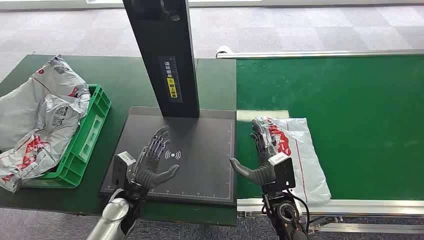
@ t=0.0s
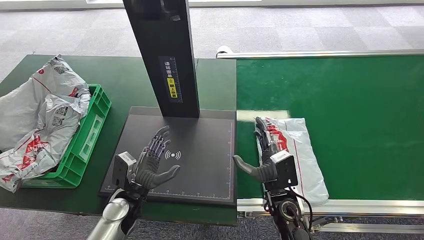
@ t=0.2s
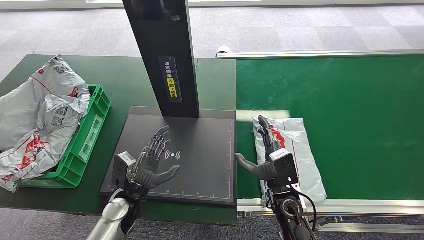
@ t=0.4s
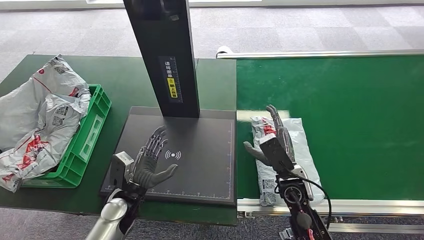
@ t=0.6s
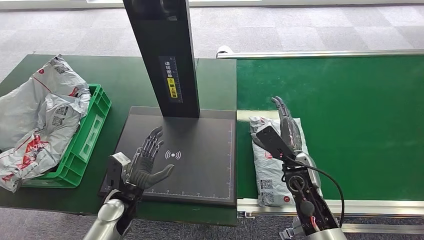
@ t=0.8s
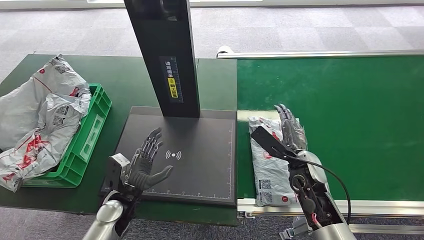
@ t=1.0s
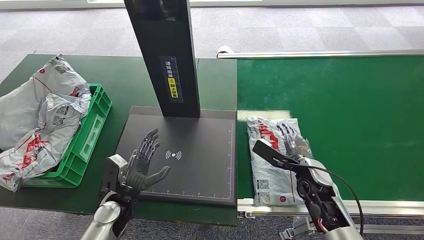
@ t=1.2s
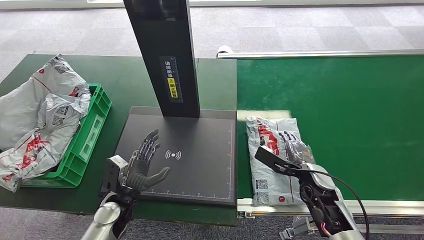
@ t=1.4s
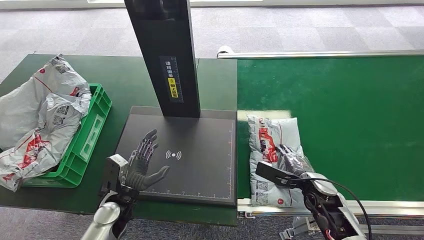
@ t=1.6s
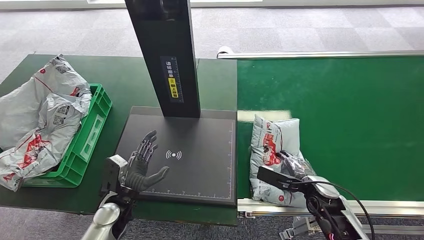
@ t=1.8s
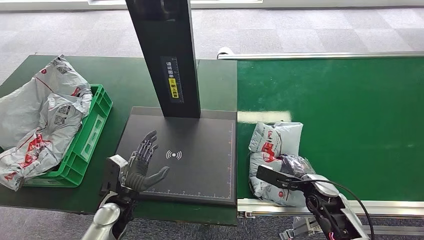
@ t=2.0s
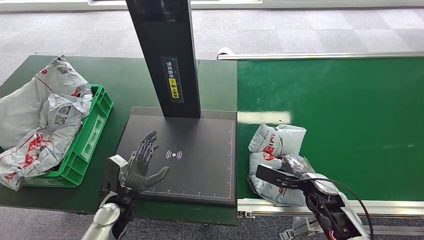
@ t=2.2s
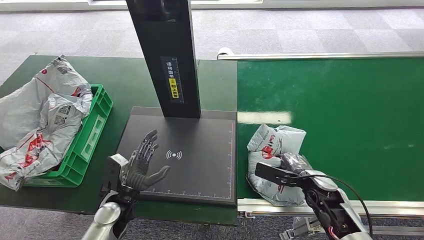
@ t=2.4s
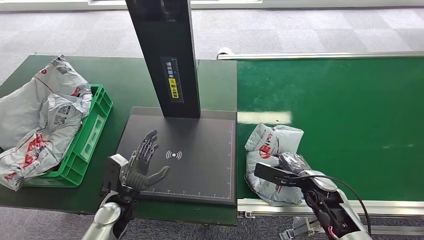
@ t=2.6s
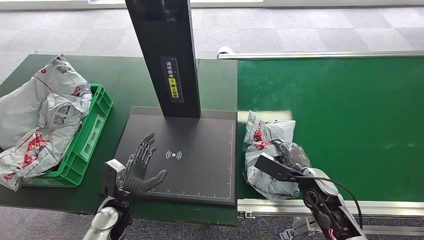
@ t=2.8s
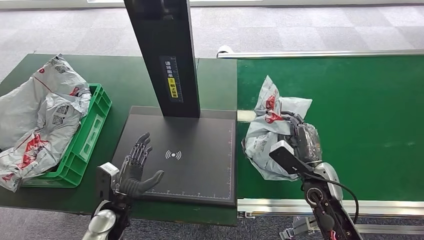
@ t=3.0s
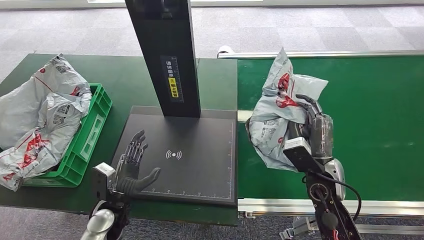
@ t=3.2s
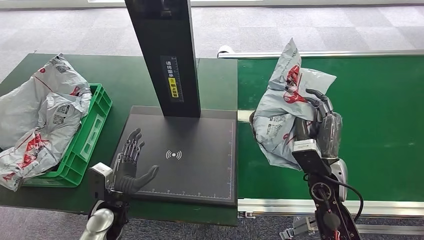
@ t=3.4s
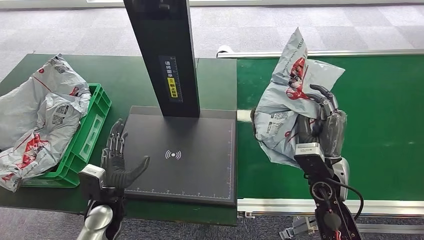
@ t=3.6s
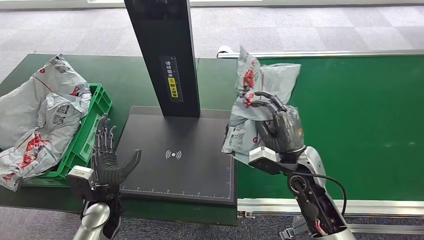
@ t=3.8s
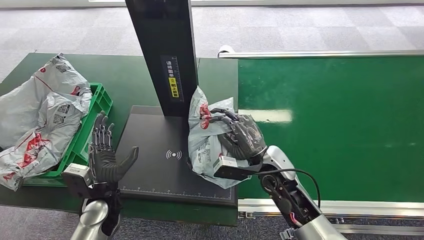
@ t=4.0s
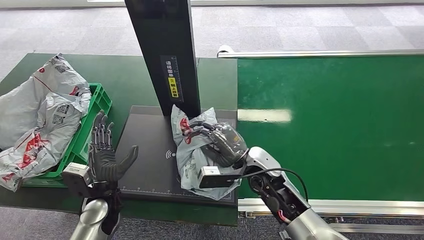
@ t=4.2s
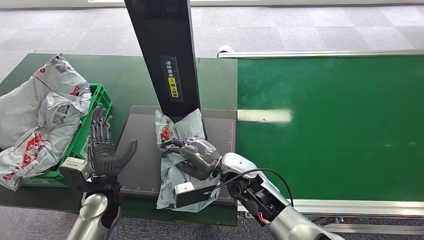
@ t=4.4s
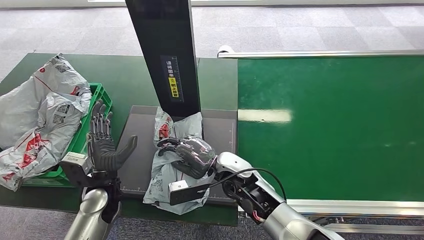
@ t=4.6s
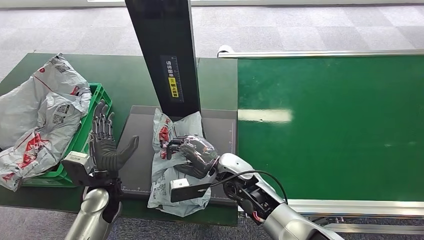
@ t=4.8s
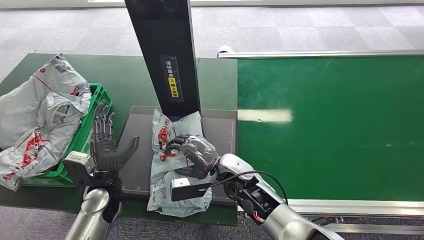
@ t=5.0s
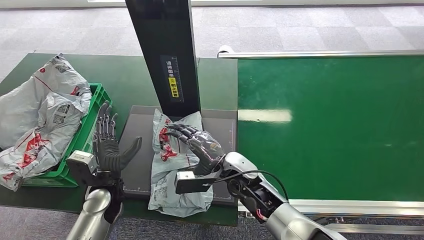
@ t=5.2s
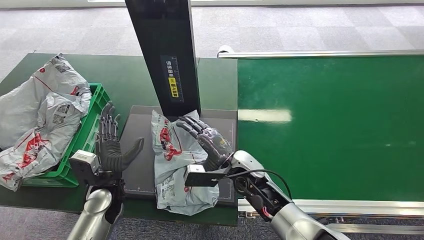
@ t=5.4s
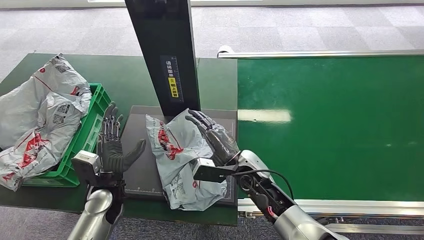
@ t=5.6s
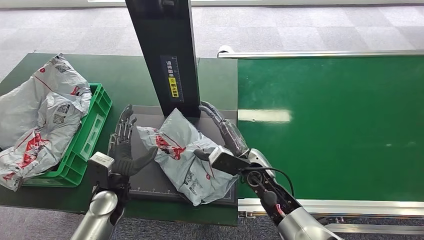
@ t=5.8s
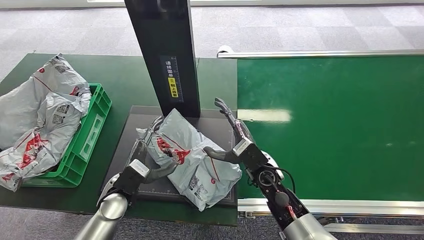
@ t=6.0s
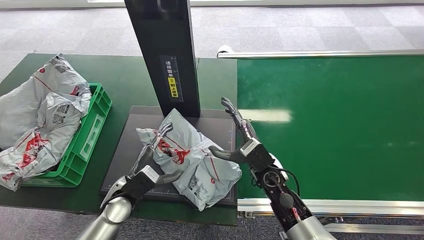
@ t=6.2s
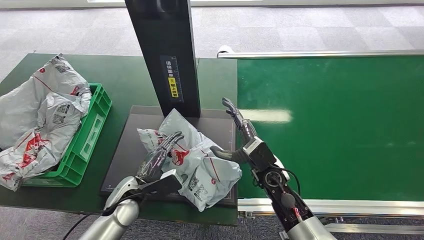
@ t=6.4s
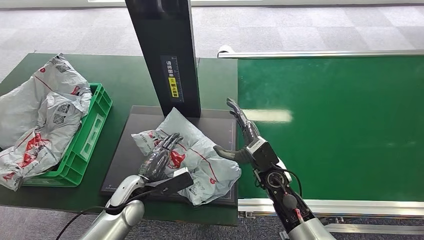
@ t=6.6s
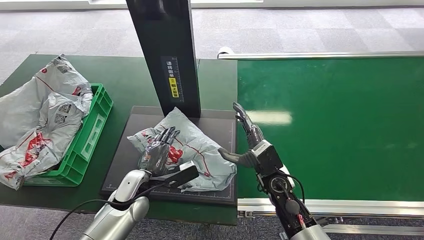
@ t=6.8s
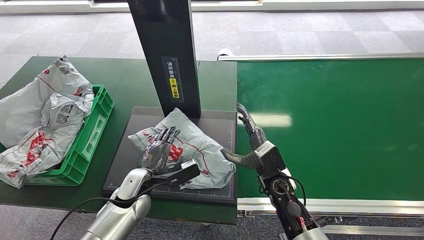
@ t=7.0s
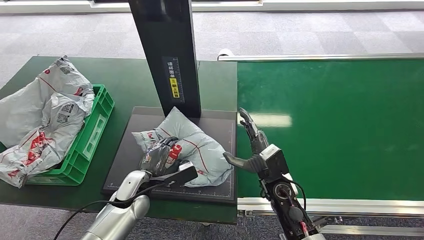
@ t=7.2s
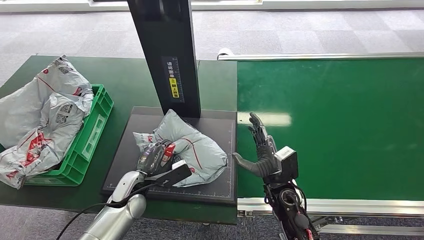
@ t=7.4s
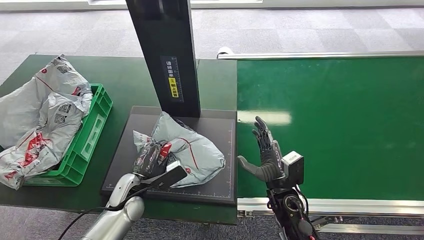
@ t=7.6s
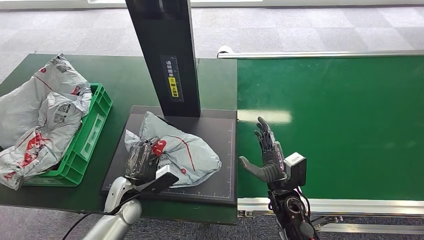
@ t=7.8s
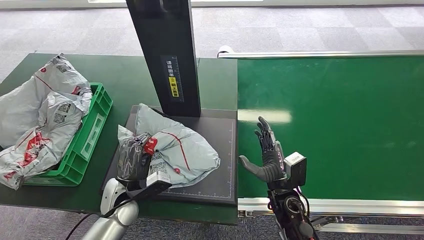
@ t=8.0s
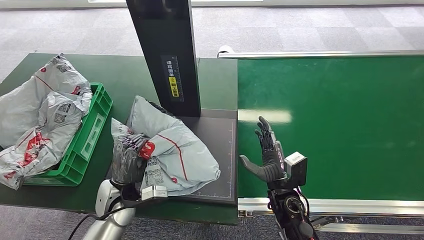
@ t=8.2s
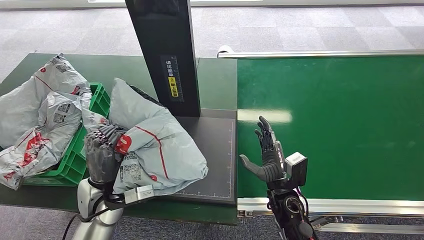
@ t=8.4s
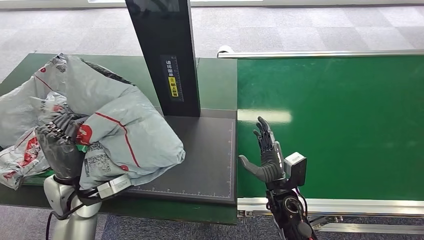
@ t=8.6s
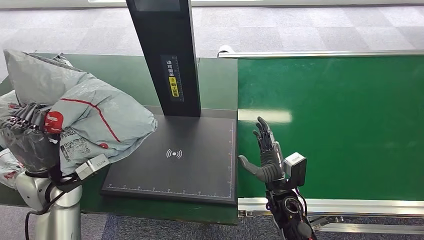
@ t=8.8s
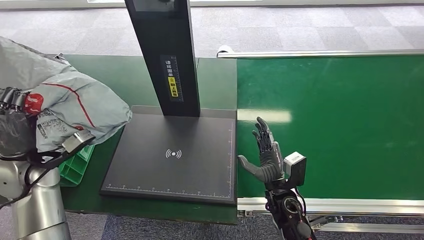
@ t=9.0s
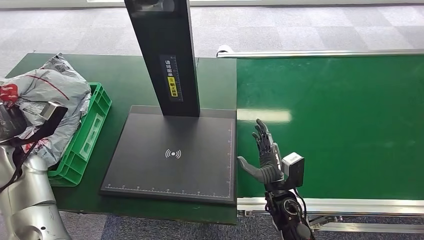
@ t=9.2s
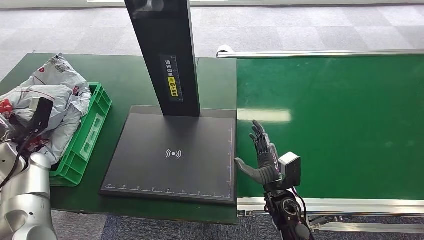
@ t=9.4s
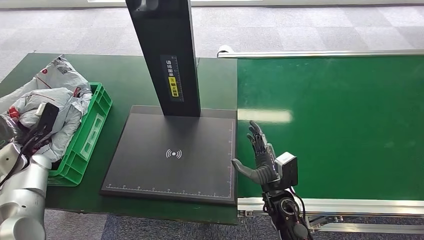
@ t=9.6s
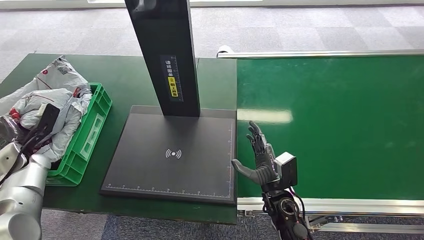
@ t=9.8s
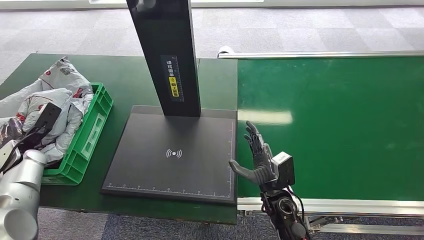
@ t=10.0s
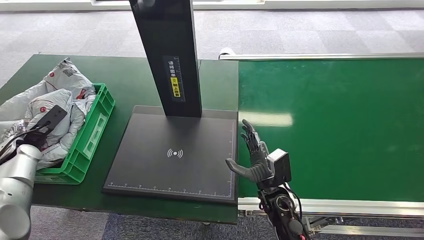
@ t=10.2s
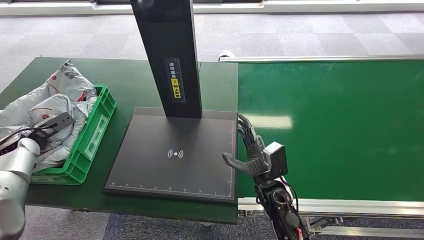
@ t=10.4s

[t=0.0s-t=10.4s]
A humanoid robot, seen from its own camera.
Step, t=0.0s to t=3.8s: Pick up the package from the conveyor belt.
Step, t=4.0s to t=6.2s: Place the package onto the inbound machine.
Step, t=6.6s to t=8.8s: Pick up the package from the inbound machine.
t=3.0s to t=4.4s: The right hand moves to the left, roughly 20 cm. The left hand shifts roughly 5 cm upward.
t=4.4s to t=6.0s: The right hand heads to the right, covering about 5 cm.

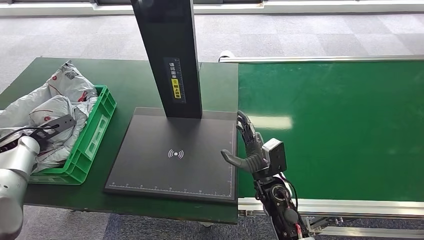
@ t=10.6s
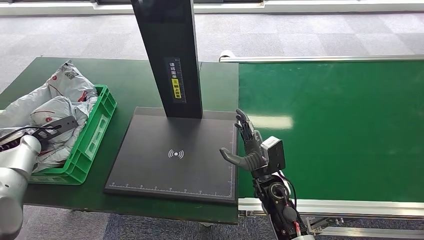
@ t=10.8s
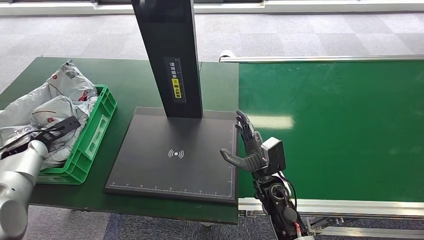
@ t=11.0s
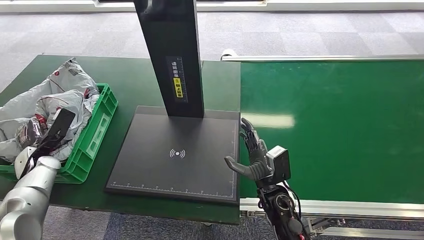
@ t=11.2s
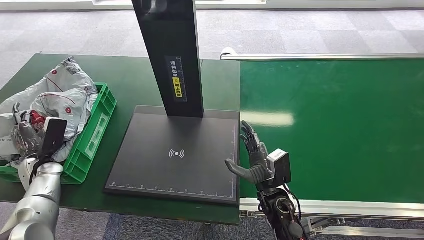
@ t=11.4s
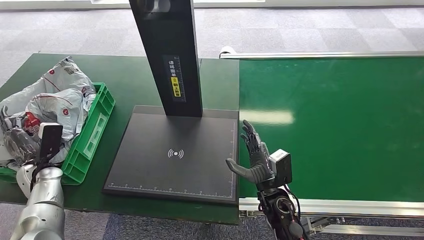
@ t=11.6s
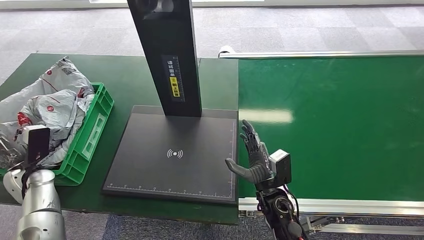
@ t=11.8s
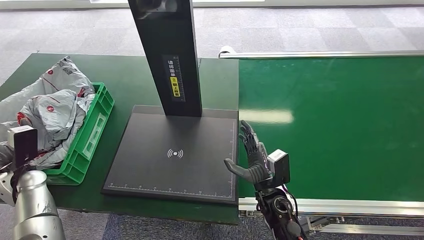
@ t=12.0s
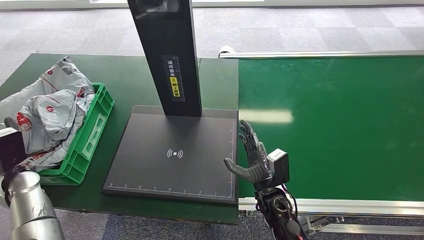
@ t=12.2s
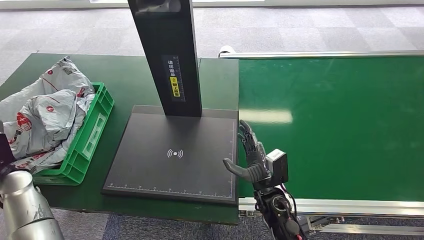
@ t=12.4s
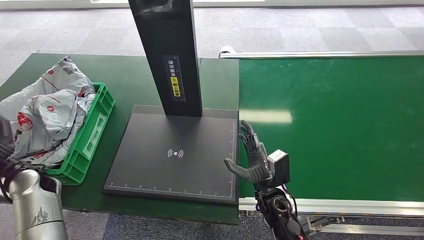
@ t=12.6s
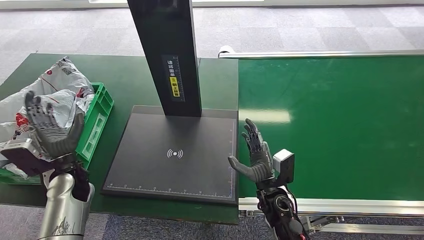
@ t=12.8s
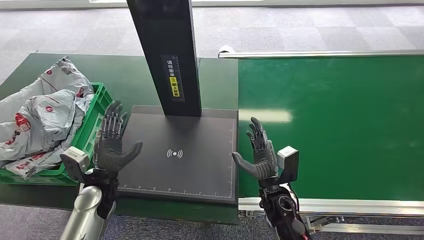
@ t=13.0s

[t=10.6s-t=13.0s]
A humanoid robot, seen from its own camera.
Step, t=10.6s to t=12.8s: Place the package into the parcel locker.
t=11.8s to t=13.0s: The left hand shifts approximately 20 cm to the right.

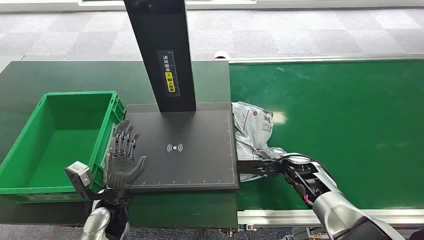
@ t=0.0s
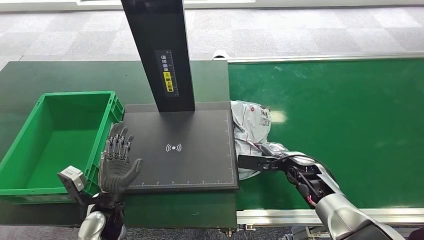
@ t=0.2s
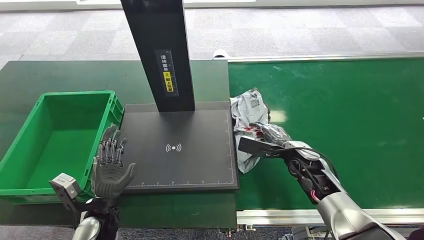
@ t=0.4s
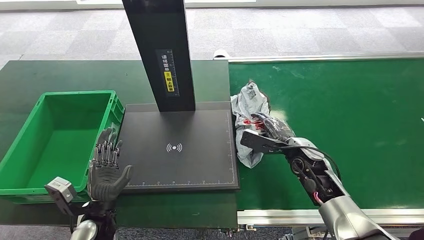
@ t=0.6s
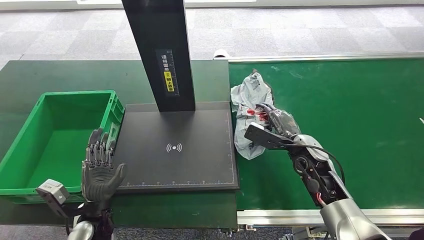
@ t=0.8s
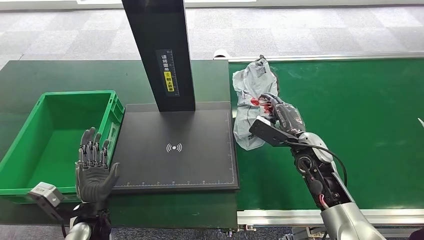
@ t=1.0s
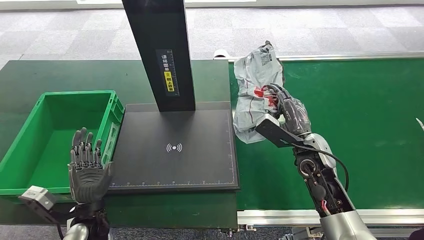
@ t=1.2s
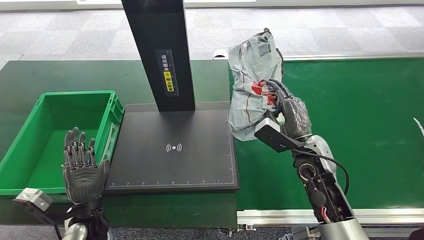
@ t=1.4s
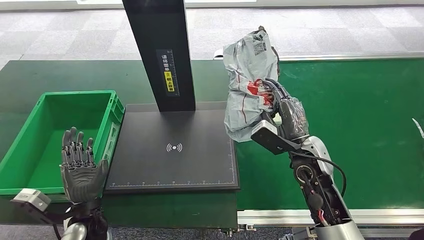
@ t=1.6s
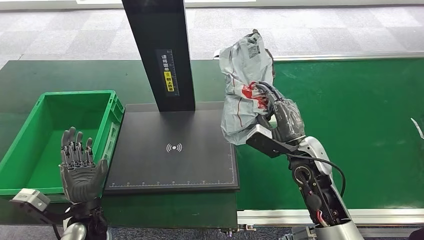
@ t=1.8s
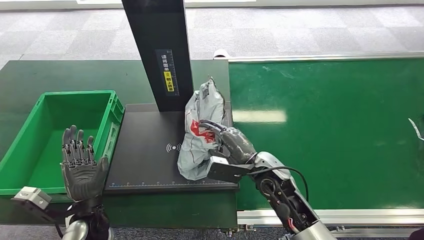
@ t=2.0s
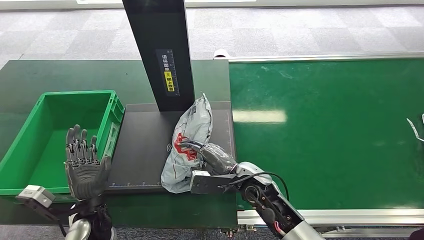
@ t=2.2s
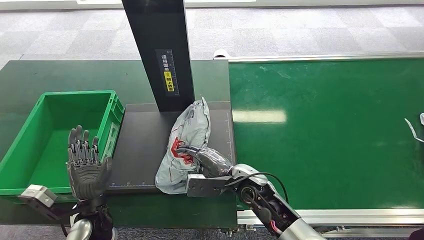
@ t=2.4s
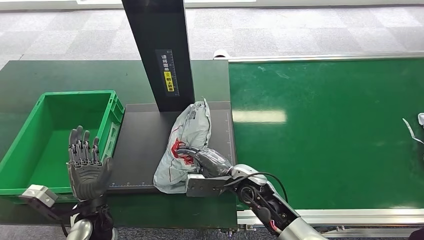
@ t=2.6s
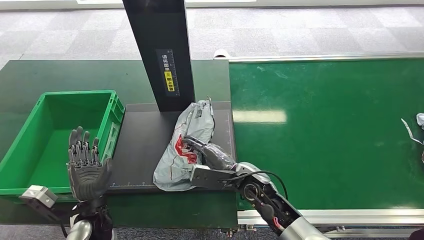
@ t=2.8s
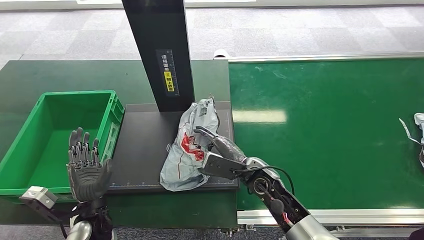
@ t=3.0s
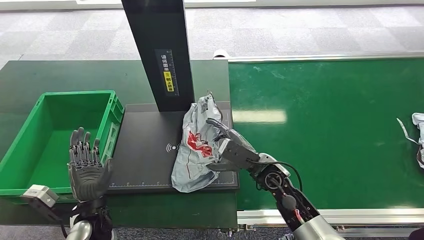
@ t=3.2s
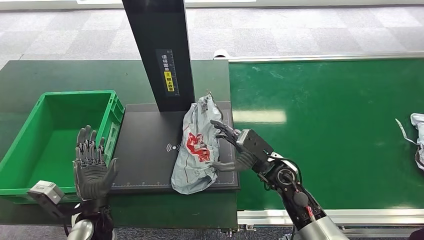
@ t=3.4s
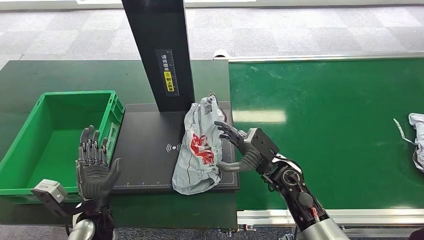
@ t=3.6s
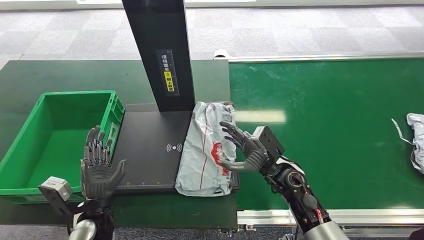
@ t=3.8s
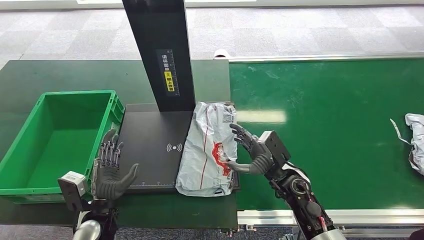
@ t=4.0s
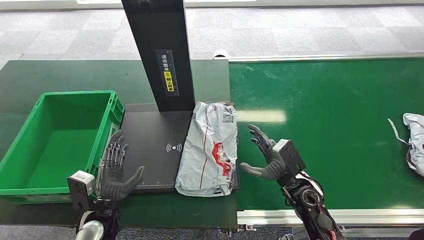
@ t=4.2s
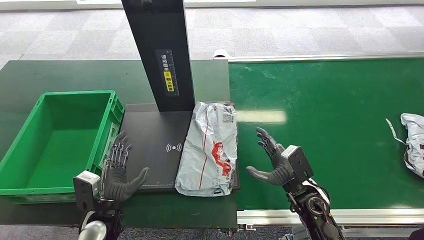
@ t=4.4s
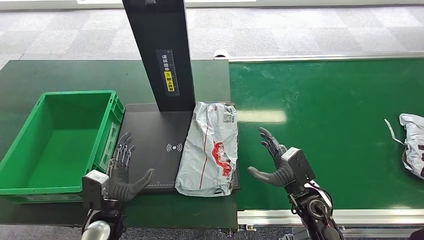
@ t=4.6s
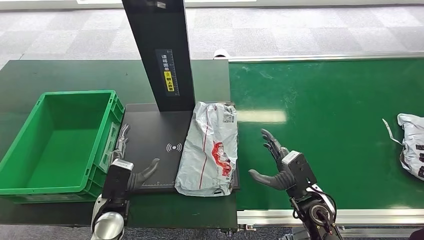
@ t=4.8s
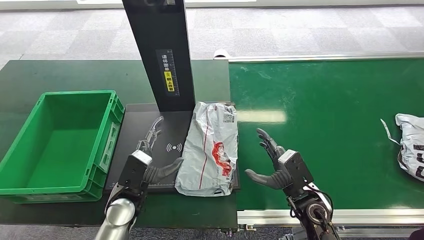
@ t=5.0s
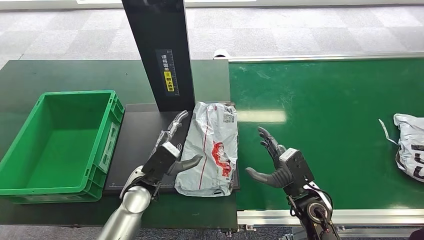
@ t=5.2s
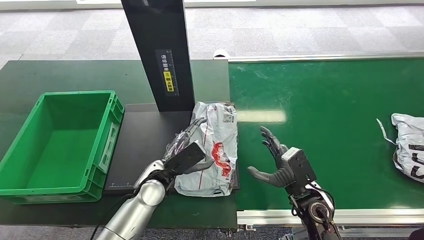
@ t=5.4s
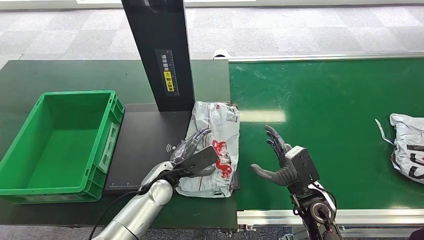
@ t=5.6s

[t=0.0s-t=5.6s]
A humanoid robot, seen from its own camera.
Step, t=0.0s to t=1.2s: Pick up the package from the conveyor belt.
Step, t=1.4s to t=4.4s: Place the package onto the inbound machine.
t=1.4s to t=2.8s: The right hand heads to the left and downward, covering about 15 cm.
t=2.8s to t=4.2s: The right hand moves to the right, approximately 10 cm.
t=4.2s to t=5.6s: The left hand is displaced to the right and forward by approximately 15 cm.
